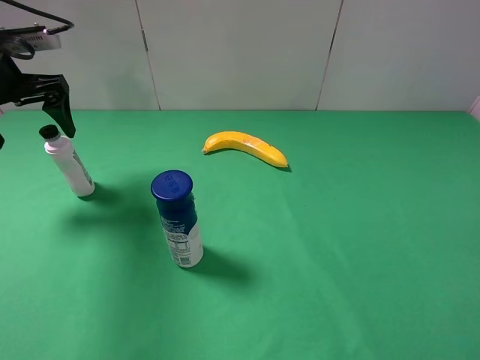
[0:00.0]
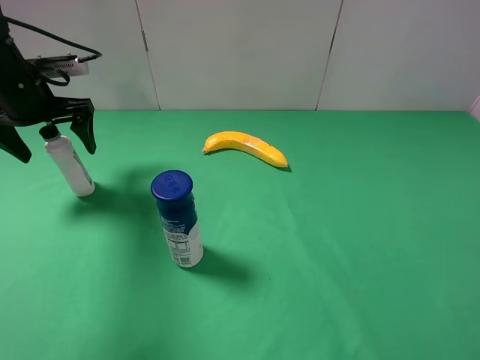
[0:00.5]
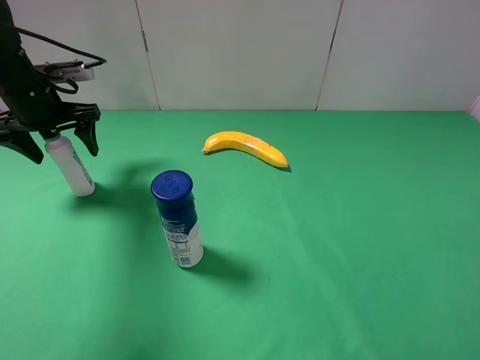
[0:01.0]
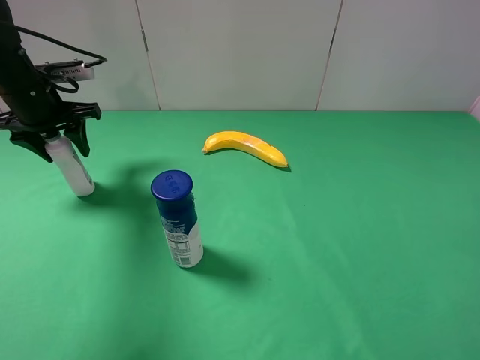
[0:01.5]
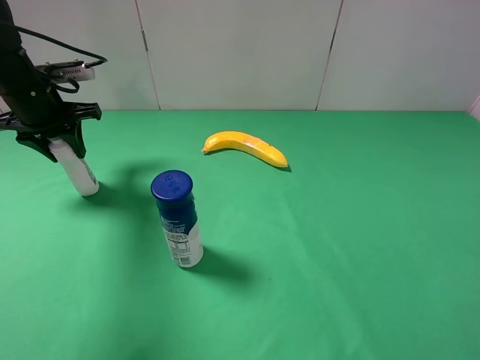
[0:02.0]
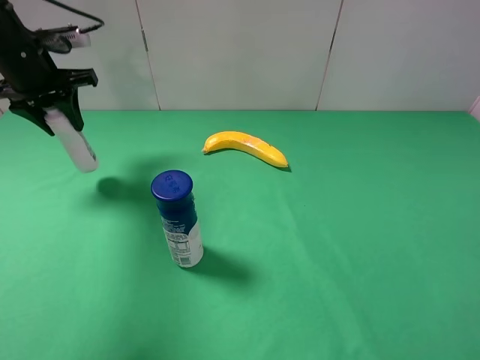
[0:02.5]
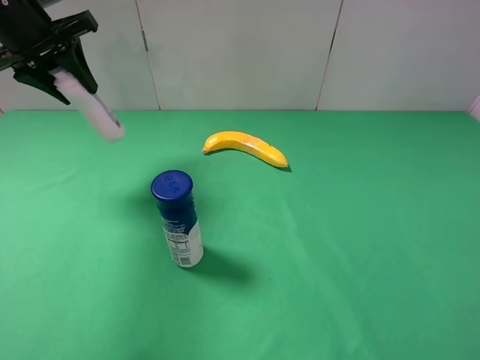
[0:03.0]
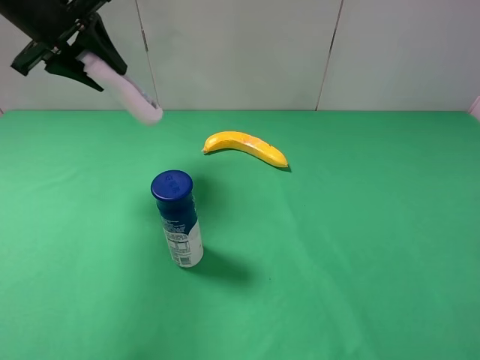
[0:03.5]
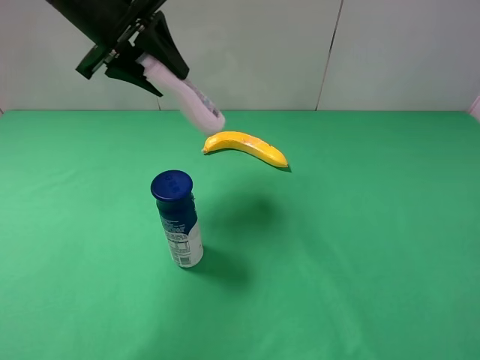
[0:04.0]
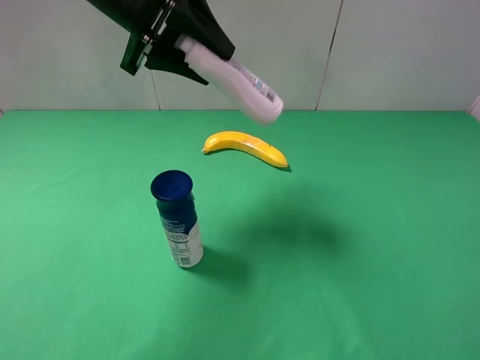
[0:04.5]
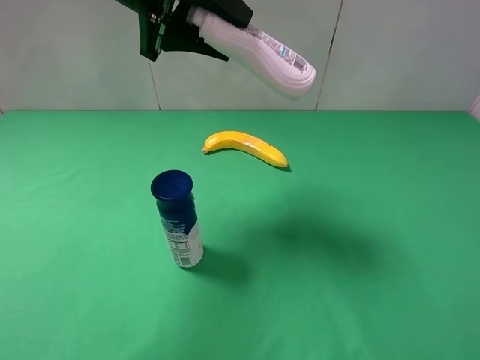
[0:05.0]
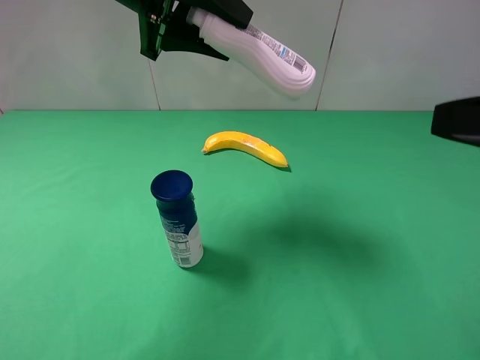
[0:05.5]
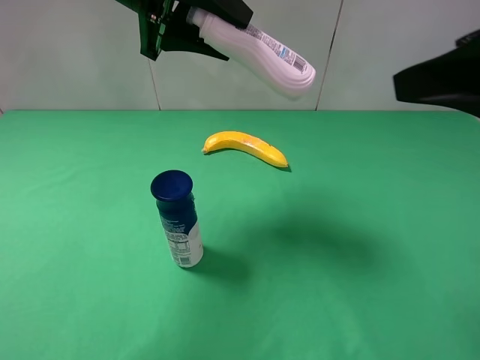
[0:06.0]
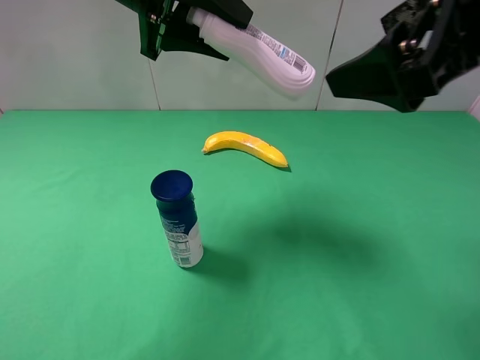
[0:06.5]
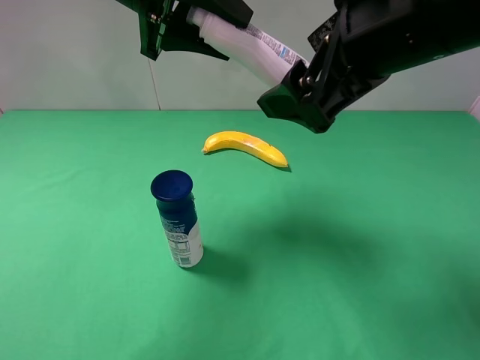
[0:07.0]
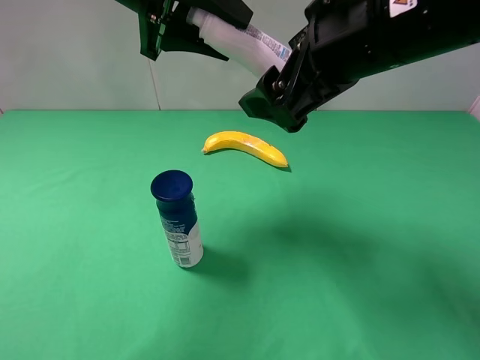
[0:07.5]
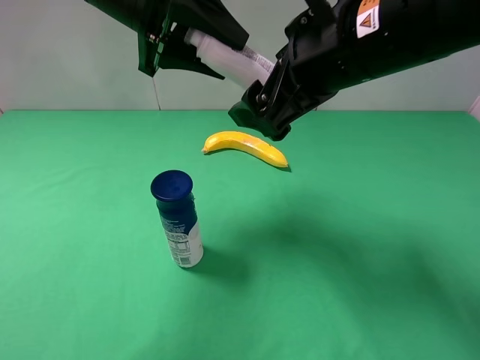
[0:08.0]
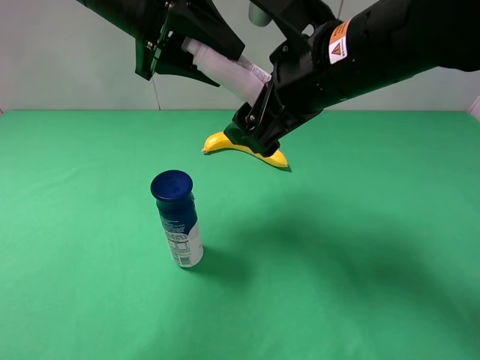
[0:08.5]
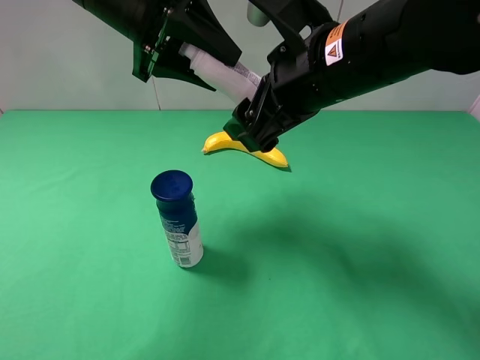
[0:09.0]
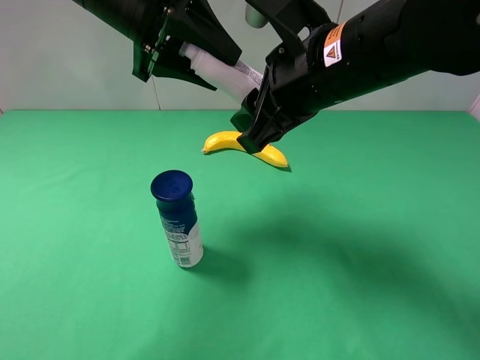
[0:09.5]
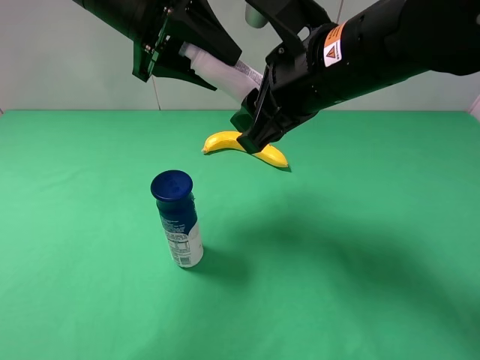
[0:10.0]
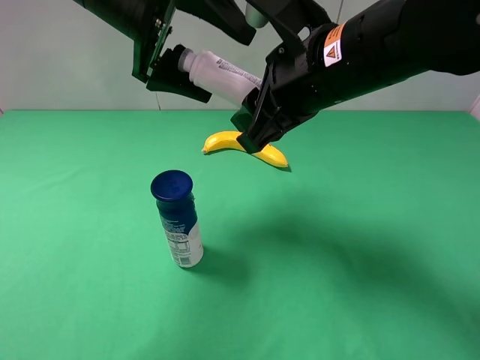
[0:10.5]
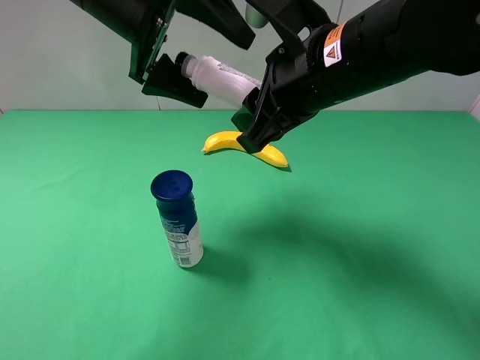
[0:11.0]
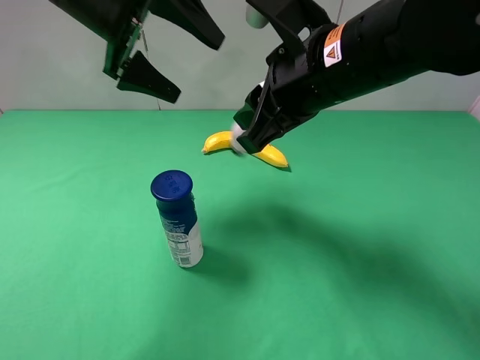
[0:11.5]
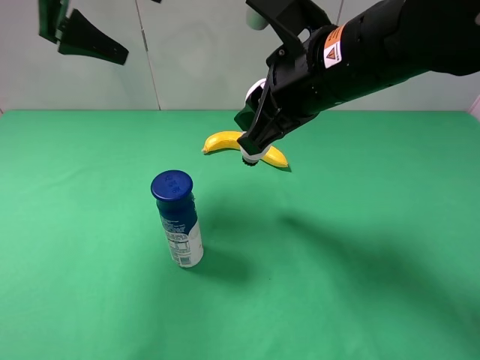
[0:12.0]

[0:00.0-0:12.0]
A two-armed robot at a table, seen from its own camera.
Task of the whole recording: use the left gripper to pick up the item and transfer it from the left gripper to the right gripper.
Step, 0:02.0 to 0:10.5: Pass the cleaning agent to the right gripper.
0:00.0 to 0:02.0: The left gripper travels downward by roughly 5 cm, and closes its fingers.
0:02.0 to 0:04.0: The left gripper heads to the right and upward, covering about 20 cm.
0:04.0 to 0:06.0: The left gripper shifts by roughly 5 cm; the right gripper moves forward, upward and to the left, approximately 20 cm.
0:06.0 to 0:08.0: The right gripper moves to the left, forward and downward, approximately 15 cm.
0:08.0 to 0:10.0: The right gripper closes up.
0:10.0 to 0:12.0: The left gripper moves to the left, some 10 cm, and opens.

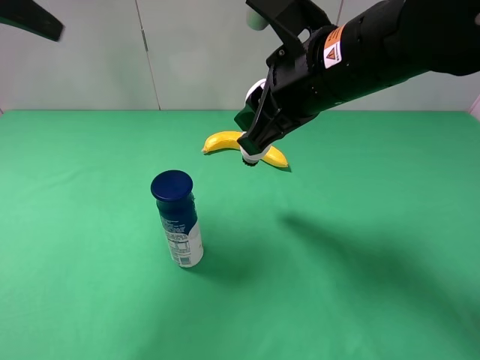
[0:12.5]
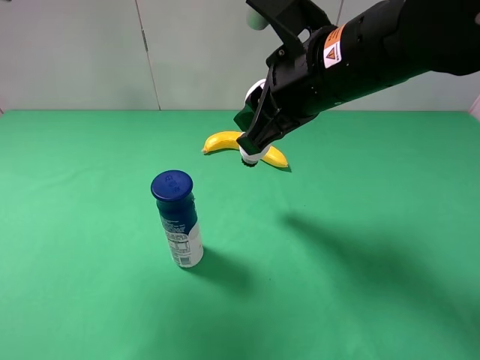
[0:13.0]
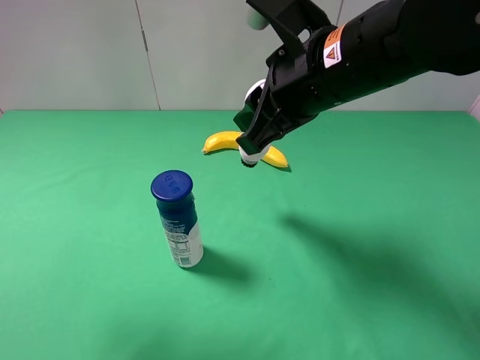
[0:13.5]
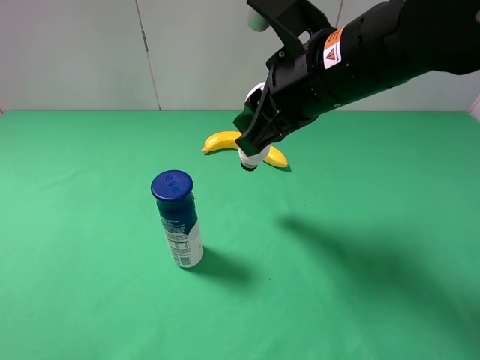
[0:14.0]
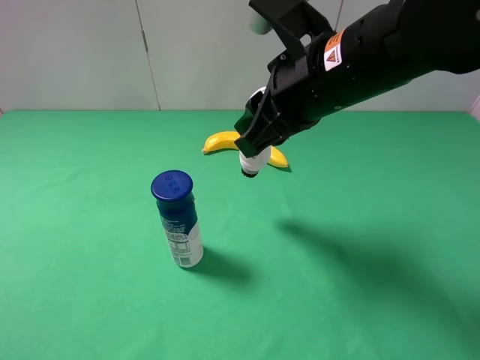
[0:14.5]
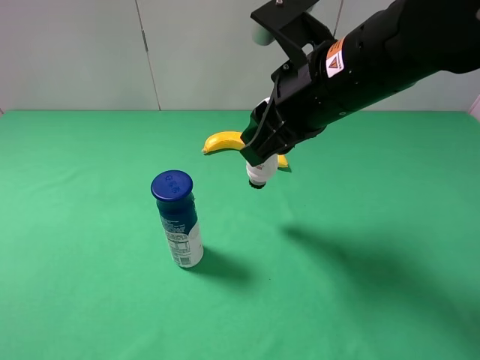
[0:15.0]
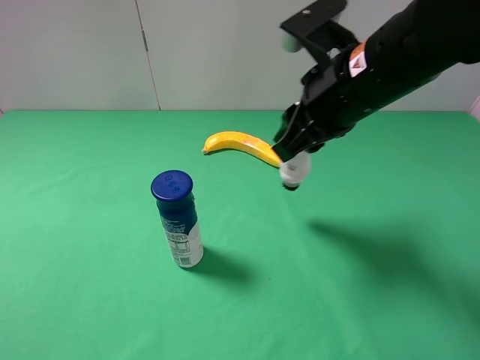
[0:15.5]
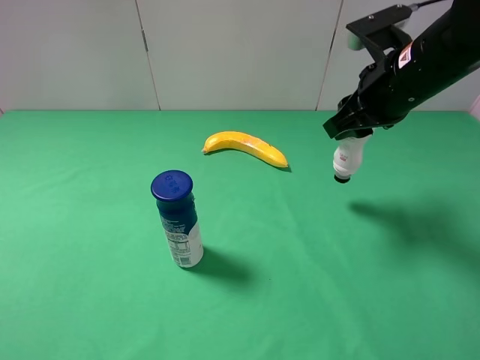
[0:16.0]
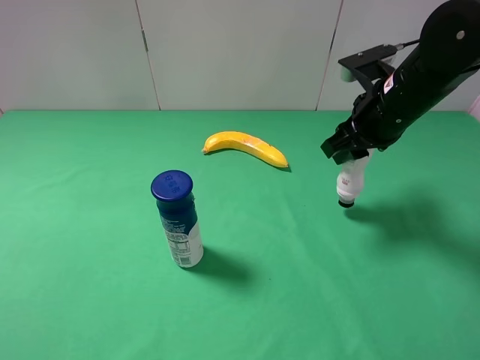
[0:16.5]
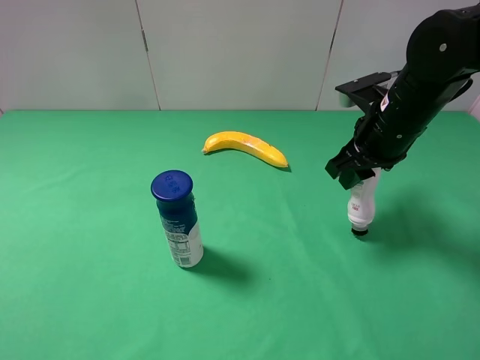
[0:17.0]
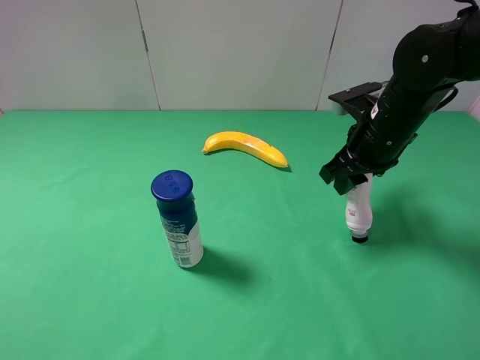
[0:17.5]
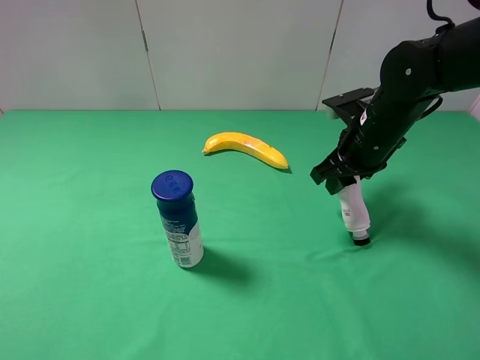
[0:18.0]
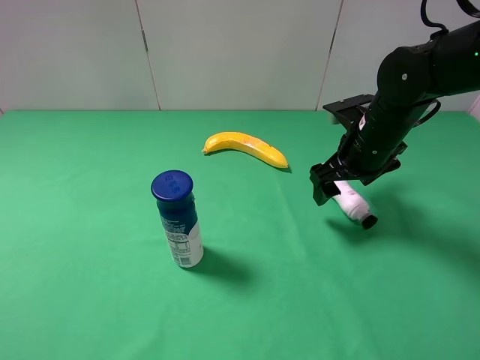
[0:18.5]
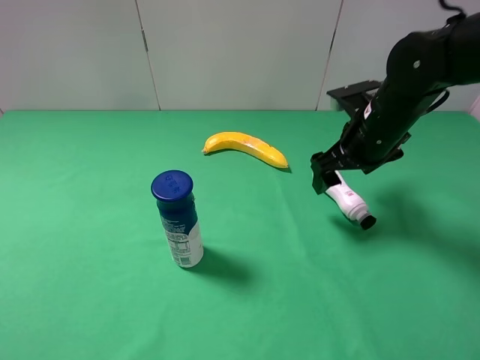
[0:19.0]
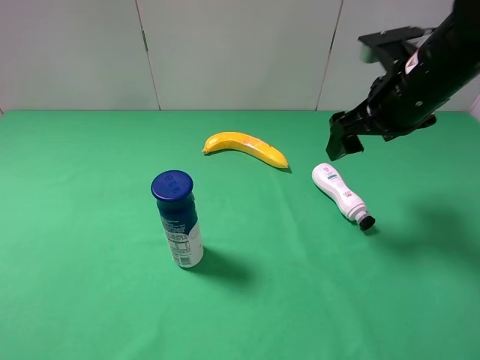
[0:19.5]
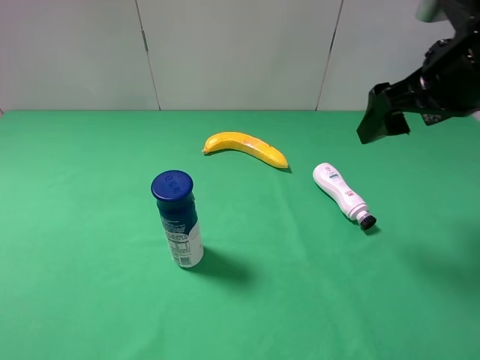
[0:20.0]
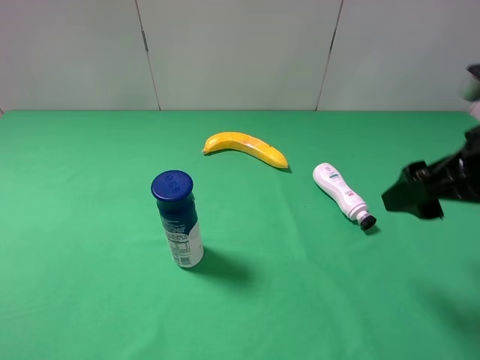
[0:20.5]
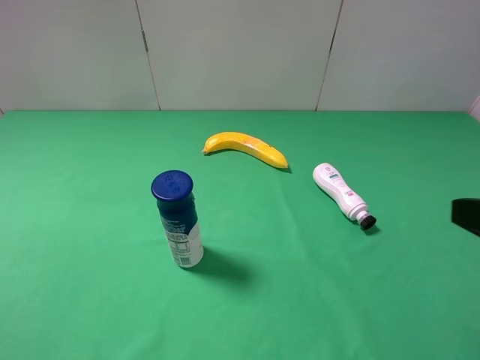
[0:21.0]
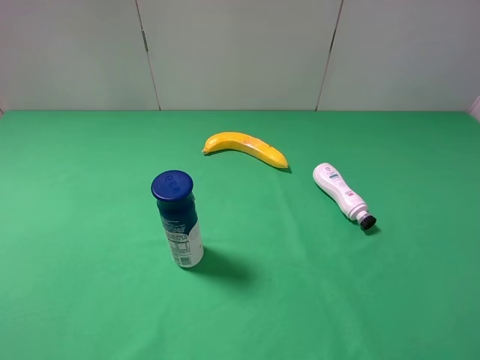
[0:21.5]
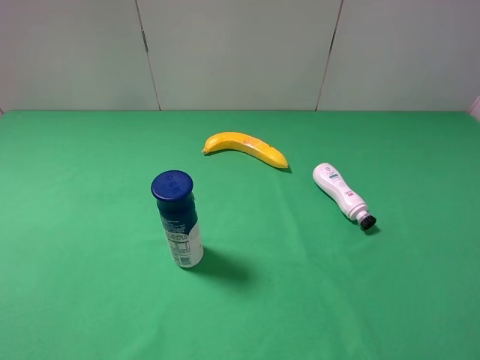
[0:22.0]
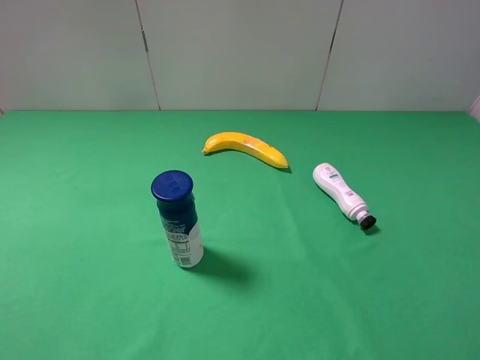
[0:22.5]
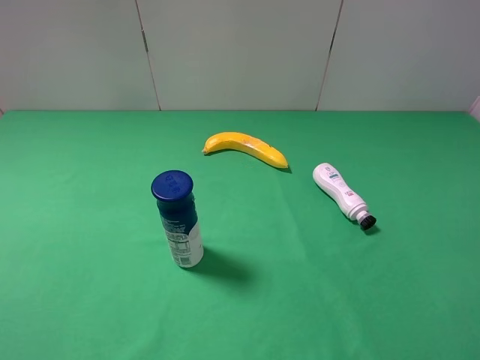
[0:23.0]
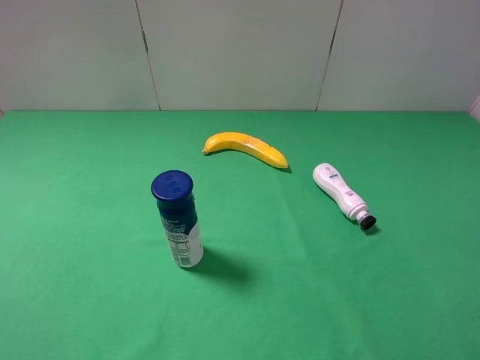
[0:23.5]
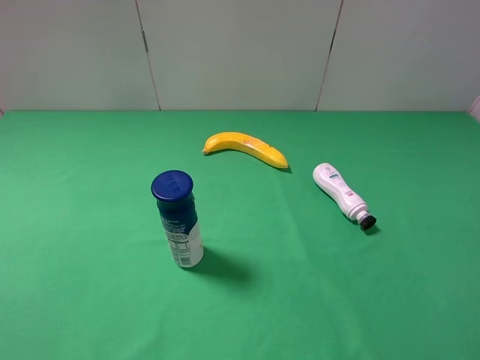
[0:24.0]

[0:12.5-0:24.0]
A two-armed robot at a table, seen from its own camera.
Task of the whole recording: use the left gripper to pick up the item and transfer it from the left gripper to the right gripper.
Step, 0:12.5 to 0:18.0: The right gripper places cleaning agent on the right side of the table.
0:12.5 to 0:14.5: The left gripper goes about 30 cm backward and downward.
0:14.5 to 0:16.5: The right gripper is displaced to the right, forward and downward by roughly 15 cm.
0:16.5 to 0:18.5: The right gripper shifts some 5 cm downward, and opens.
0:18.5 to 0:20.0: The right gripper is displaced upward and backward by some 15 cm.
0:20.0 to 0:22.0: The right gripper travels backward by some 20 cm.
